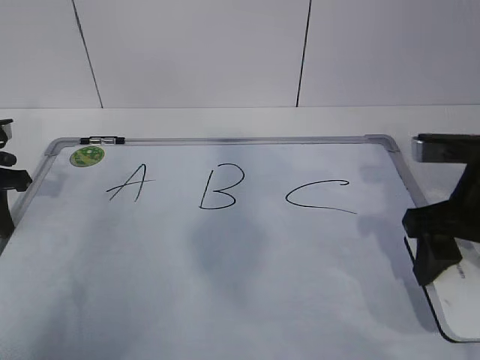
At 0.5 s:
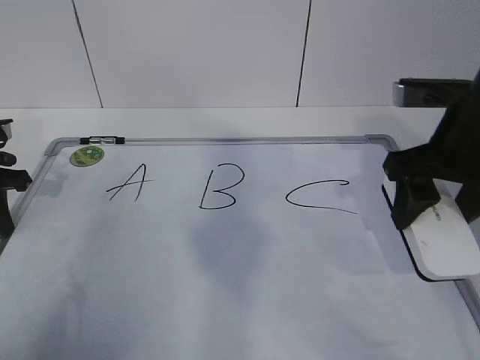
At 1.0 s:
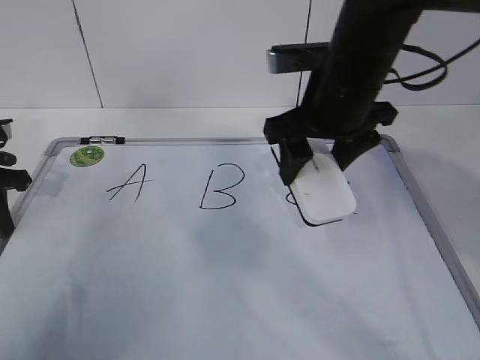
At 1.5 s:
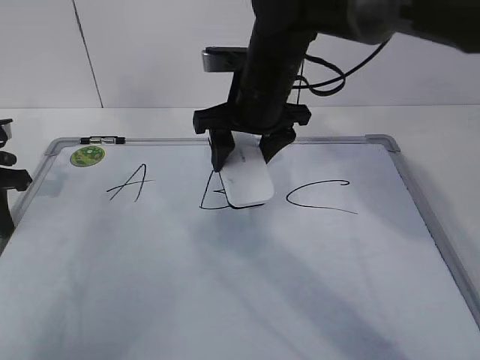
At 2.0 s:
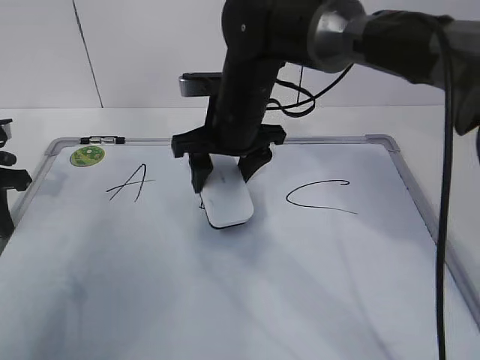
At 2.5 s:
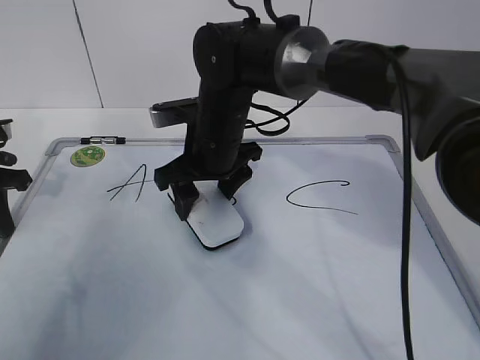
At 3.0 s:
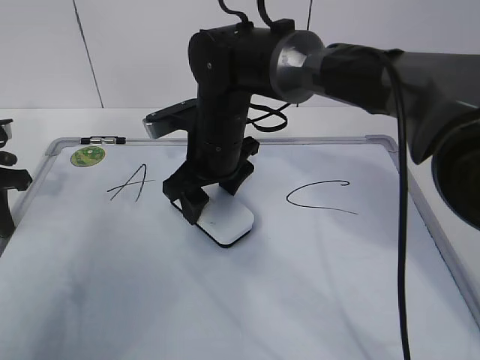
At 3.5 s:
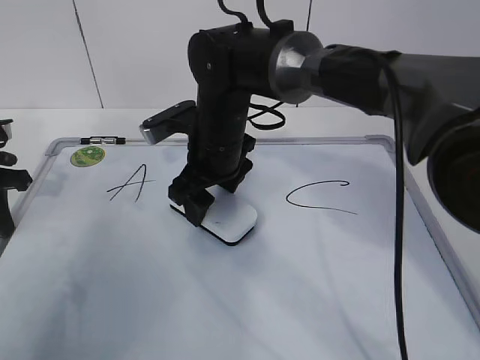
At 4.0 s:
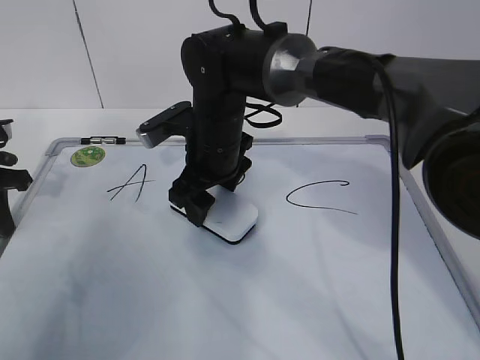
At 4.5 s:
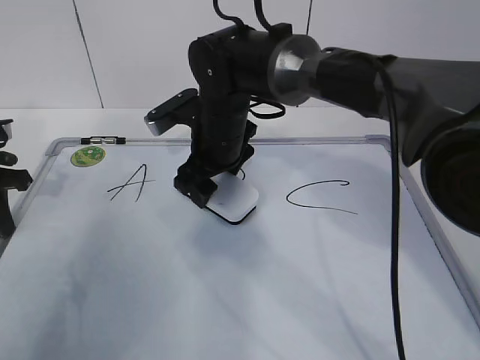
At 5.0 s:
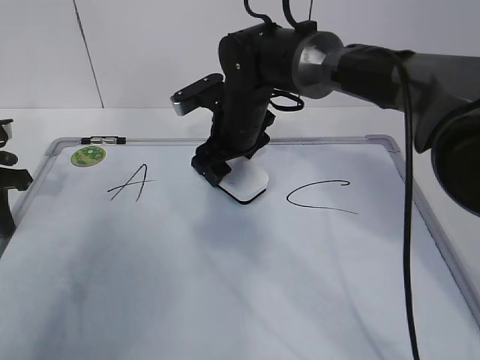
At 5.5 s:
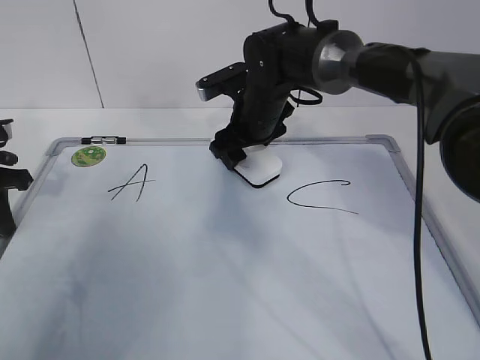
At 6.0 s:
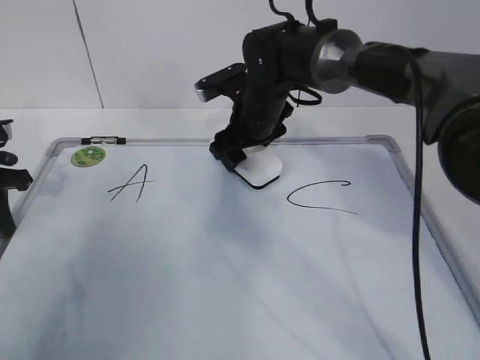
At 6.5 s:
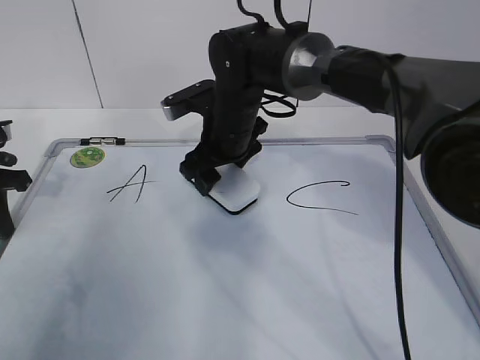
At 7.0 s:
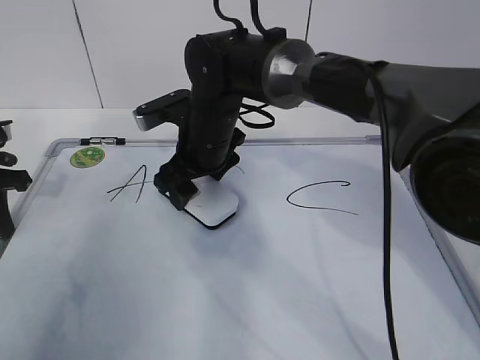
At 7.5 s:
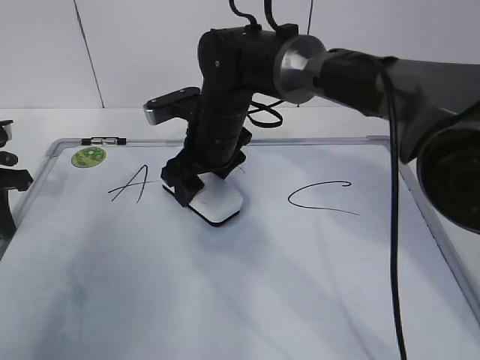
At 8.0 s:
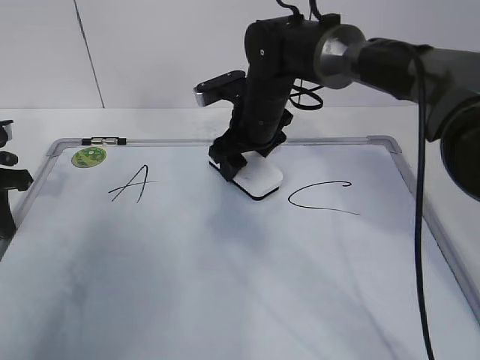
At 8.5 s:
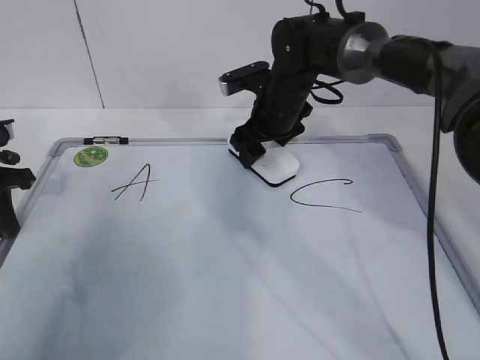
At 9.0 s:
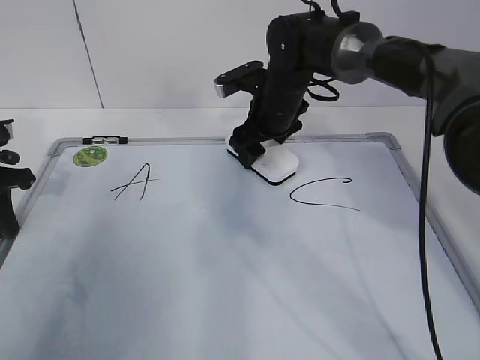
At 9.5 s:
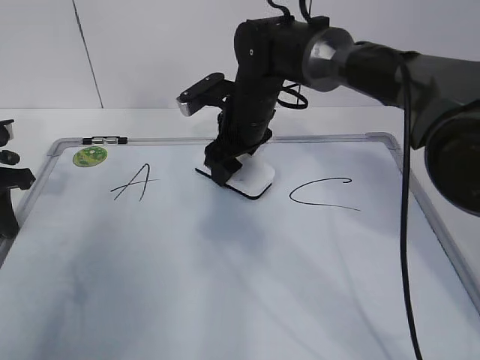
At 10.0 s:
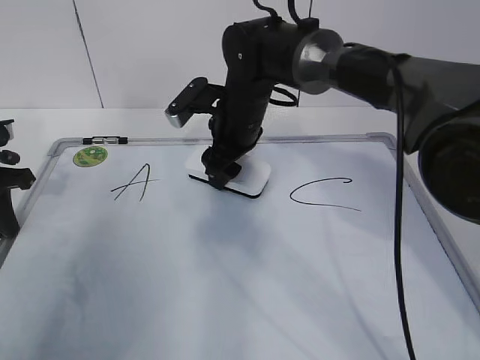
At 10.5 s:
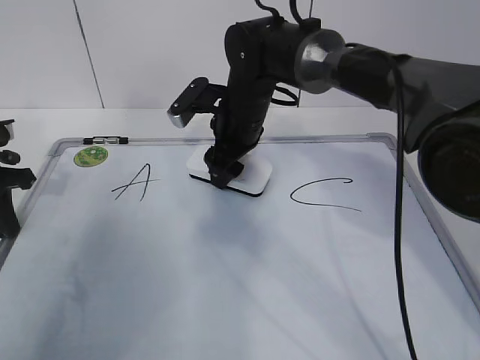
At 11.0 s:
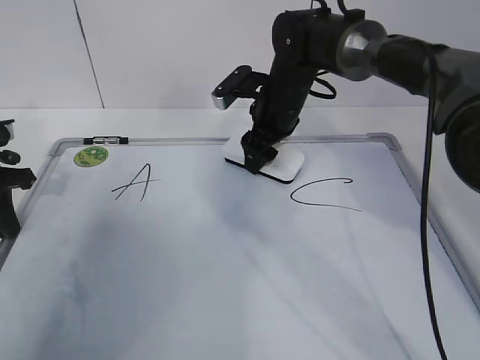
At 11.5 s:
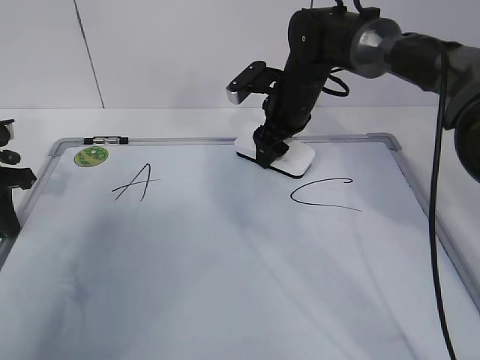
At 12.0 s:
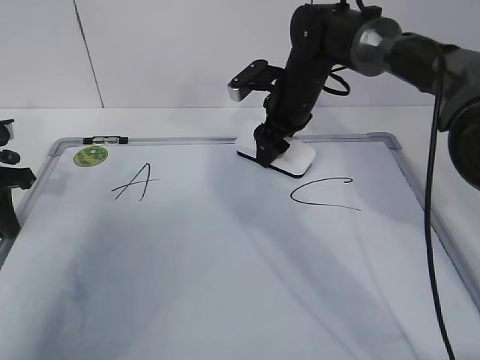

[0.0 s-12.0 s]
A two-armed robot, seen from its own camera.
Task of the whole recording: pick up the eraser on the blackboard and erase the letter "B".
Step, 0.0 to 7.0 s: Erase the letter B with your right hand.
0.0 to 2.0 s: The right gripper goes roughly 25 cm to the left and forward.
4.0 to 6.0 s: The right gripper goes approximately 10 cm forward and to the right.
10.0 to 12.0 s: The right gripper is displaced to the right by roughly 10 cm.

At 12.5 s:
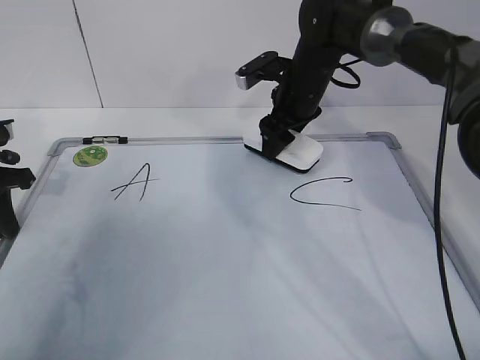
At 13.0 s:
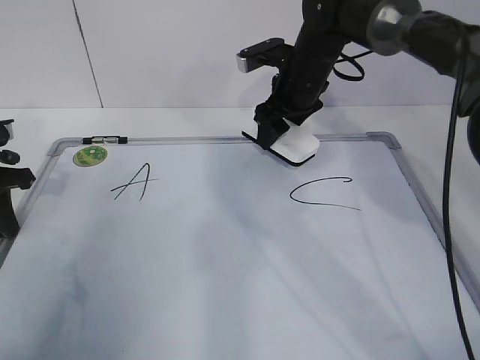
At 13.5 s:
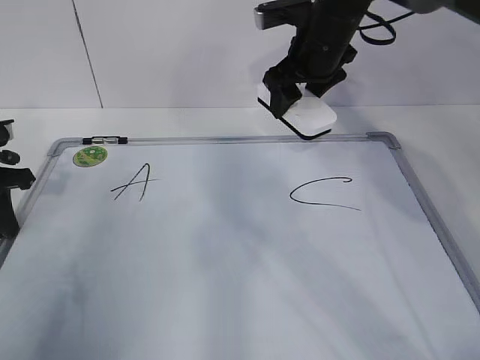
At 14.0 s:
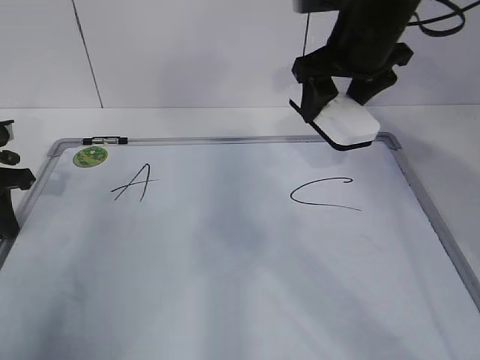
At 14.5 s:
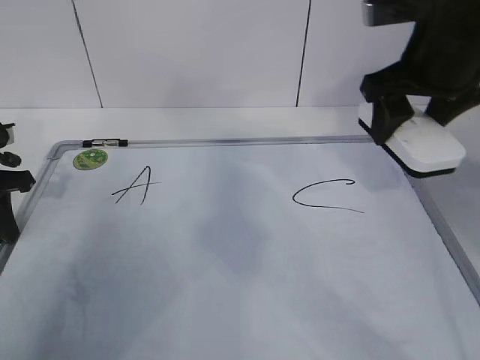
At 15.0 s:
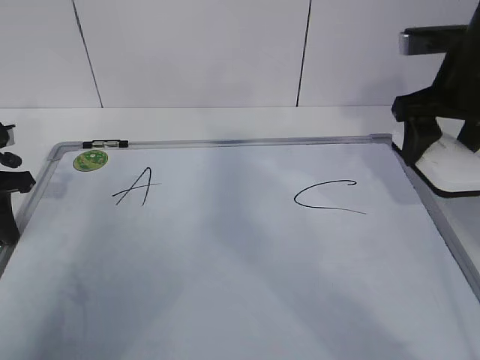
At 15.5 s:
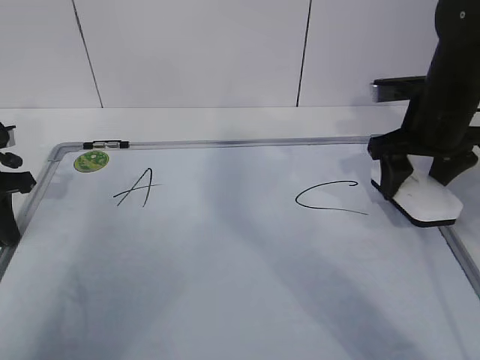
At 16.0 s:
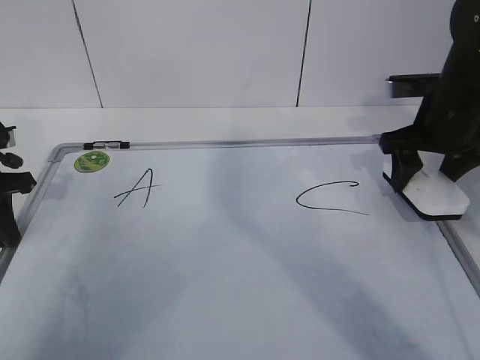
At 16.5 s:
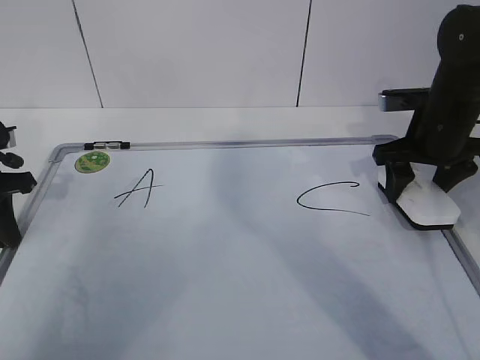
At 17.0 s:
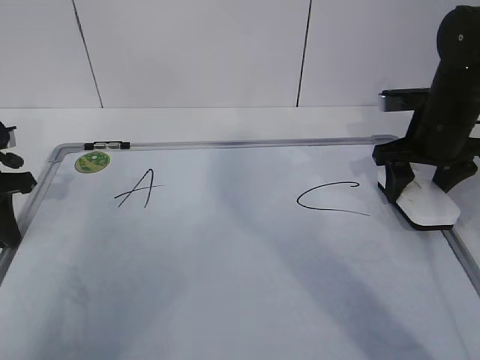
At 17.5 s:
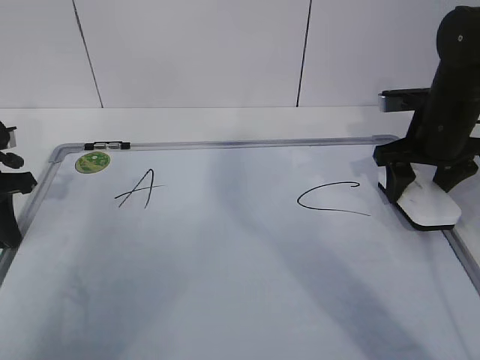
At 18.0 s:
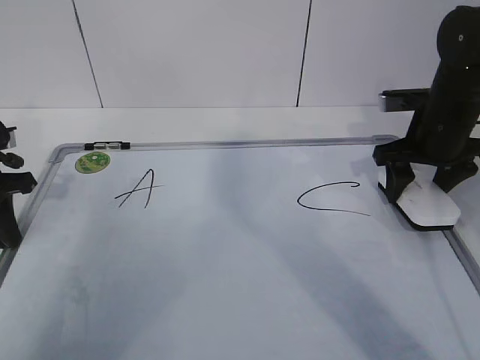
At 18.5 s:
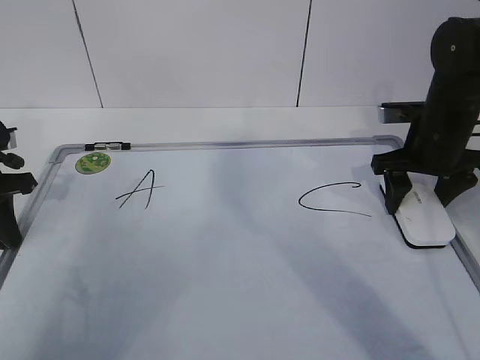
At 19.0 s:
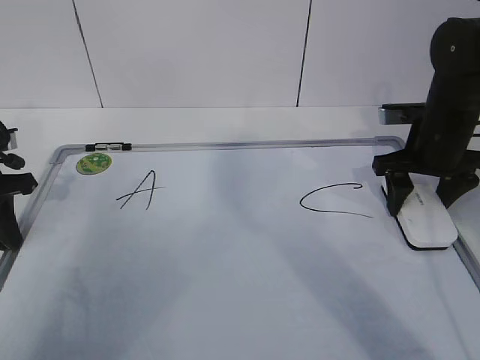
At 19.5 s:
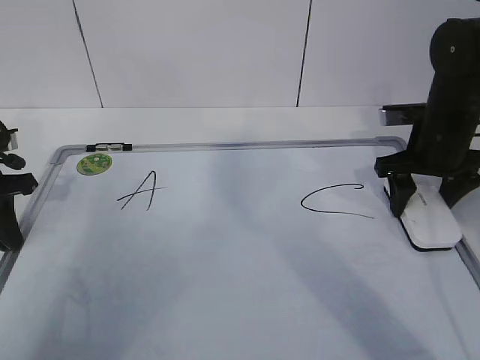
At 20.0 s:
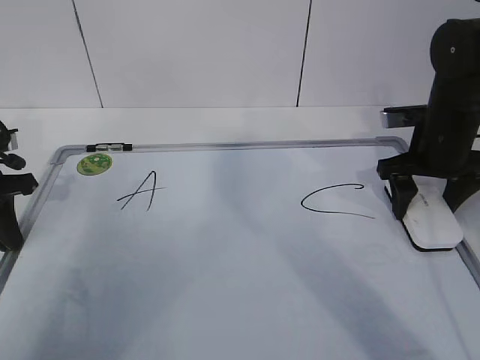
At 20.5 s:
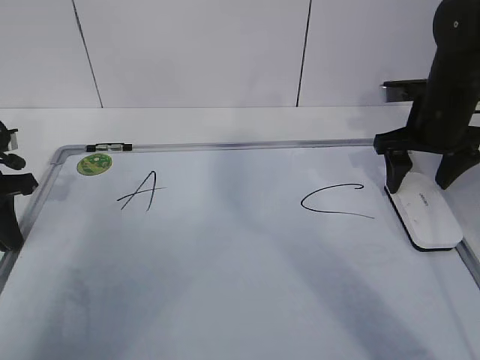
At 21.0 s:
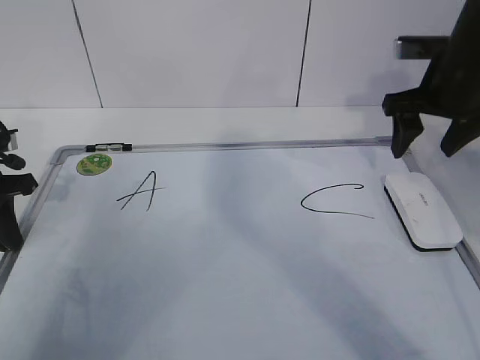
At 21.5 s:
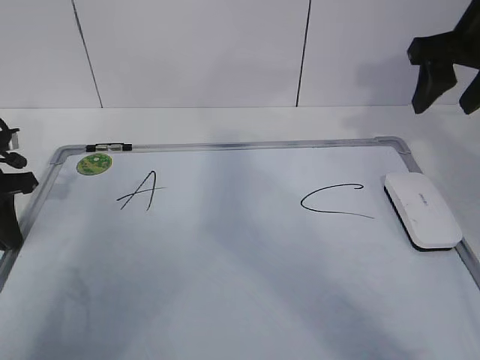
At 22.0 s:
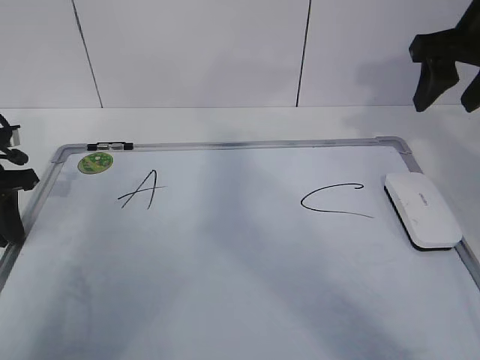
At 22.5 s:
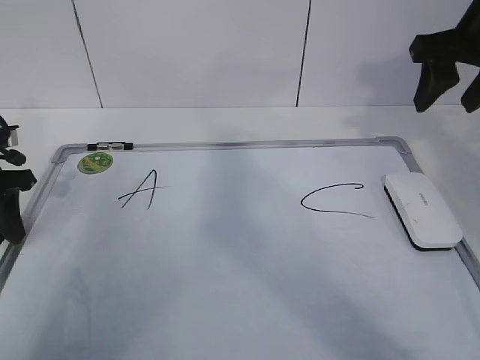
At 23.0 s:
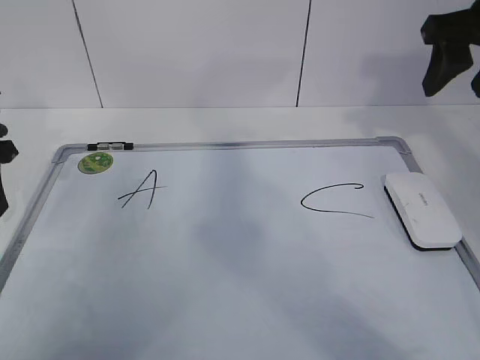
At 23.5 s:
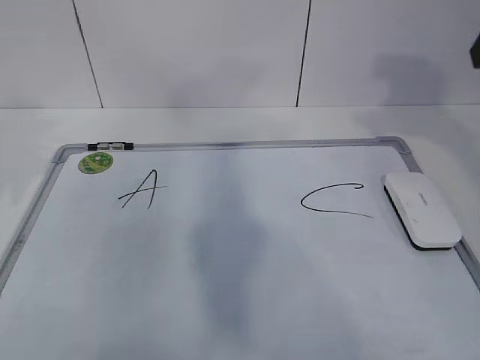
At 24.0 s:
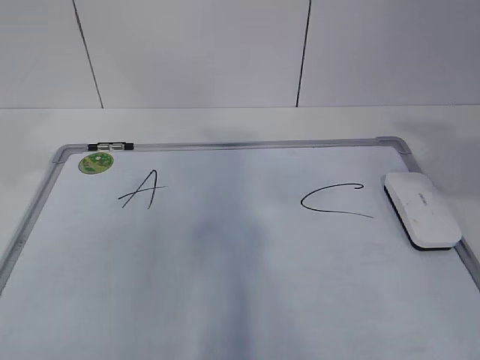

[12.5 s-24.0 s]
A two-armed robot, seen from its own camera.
Task of the whole recording: pick up the eraser on the blackboard and erase the letter "B".
12.5 to 14.5 s: The right gripper shifts roughly 20 cm backward, upward and to the right.
14.5 to 16.5 s: The right gripper moves downward and to the right, some 15 cm.
16.5 to 18.5 s: The two grippers keep their place.
18.5 to 20.0 s: The two grippers keep their place.
20.0 to 22.0 s: The left gripper opens; the right gripper moves upward, some 15 cm, and closes up.
22.0 to 24.0 s: The left gripper travels upward and backward by about 25 cm, and opens up; the right gripper moves backward, about 20 cm.

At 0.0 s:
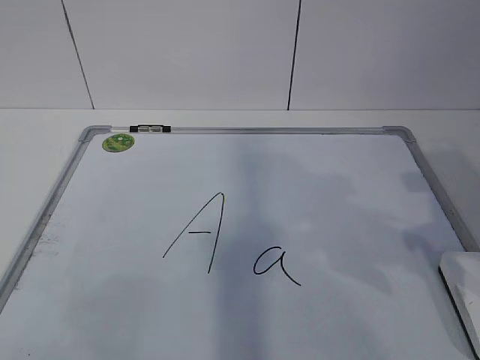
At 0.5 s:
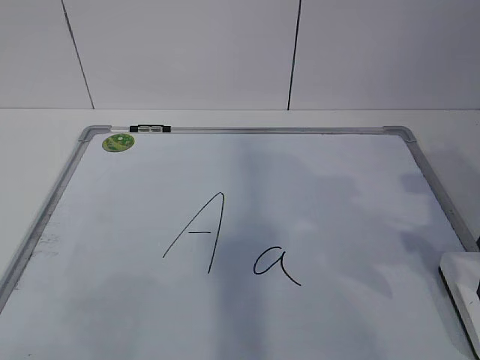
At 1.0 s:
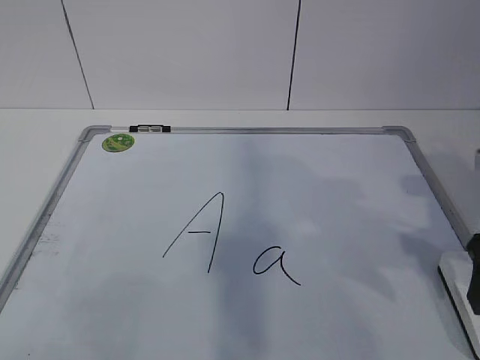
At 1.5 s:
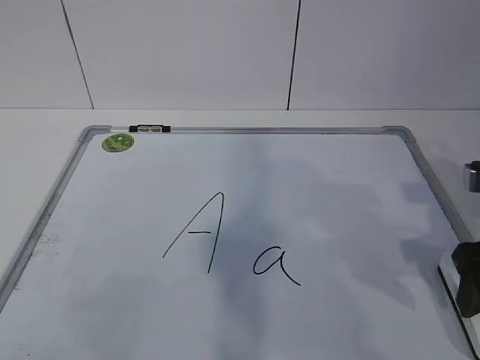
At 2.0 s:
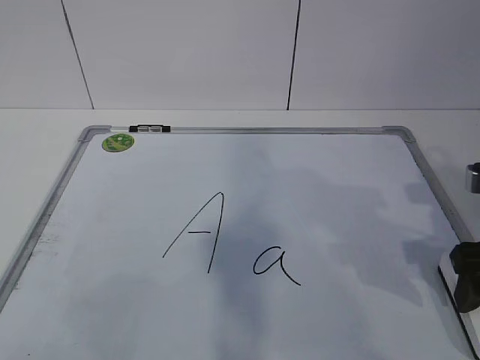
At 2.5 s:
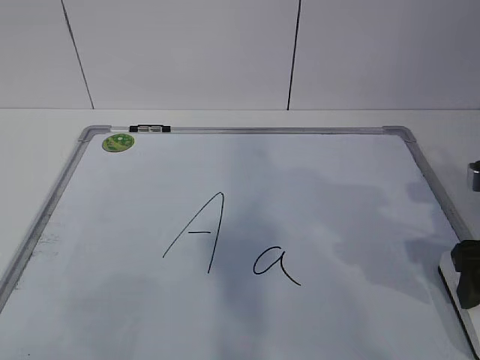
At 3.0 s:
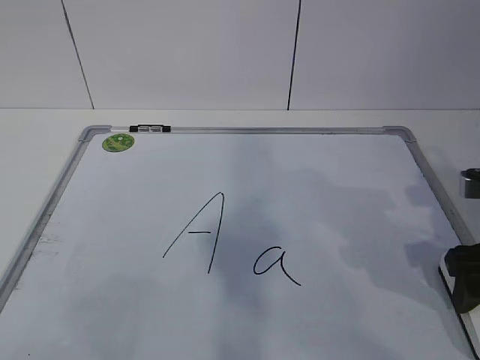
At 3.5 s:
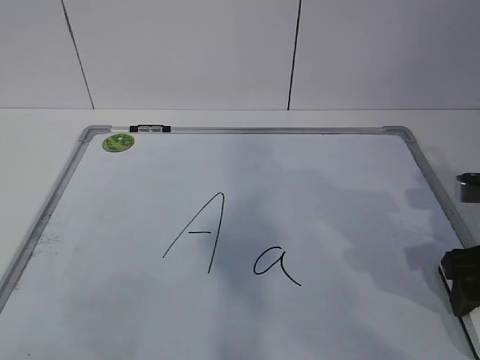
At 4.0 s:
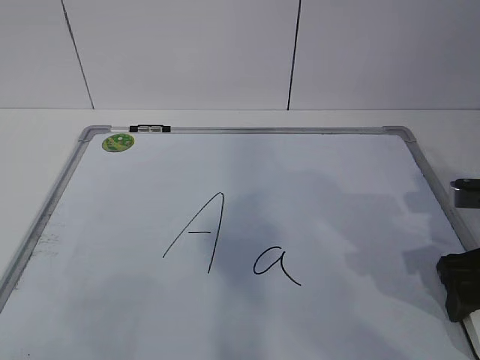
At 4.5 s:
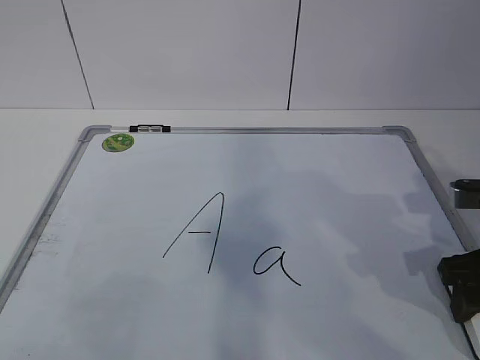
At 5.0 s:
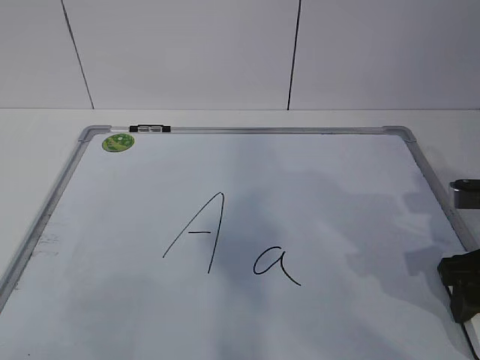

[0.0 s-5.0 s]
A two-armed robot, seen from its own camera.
Task of the whole recording: pick up the eraser on the blackboard and erase the letter "a".
0.0 to 2.5 s: The right gripper travels downward by approximately 5 cm, and opens.
2.5 to 5.0 s: The right gripper closes.
